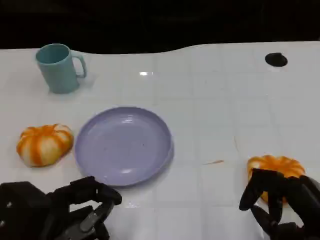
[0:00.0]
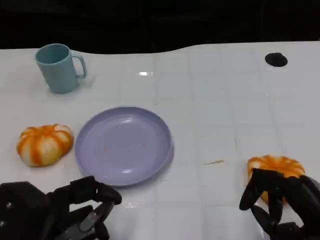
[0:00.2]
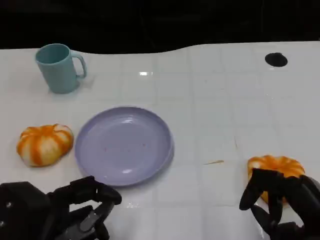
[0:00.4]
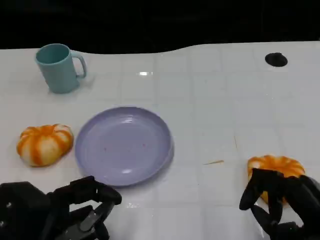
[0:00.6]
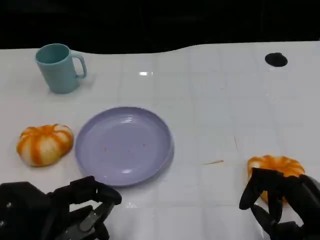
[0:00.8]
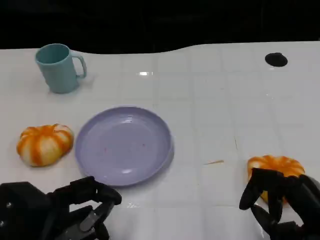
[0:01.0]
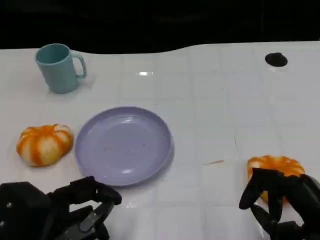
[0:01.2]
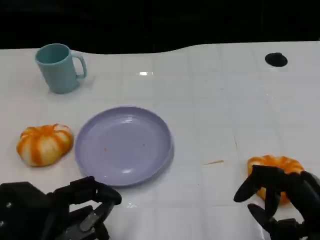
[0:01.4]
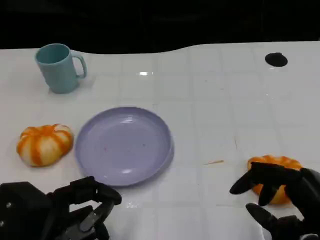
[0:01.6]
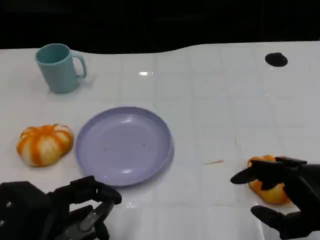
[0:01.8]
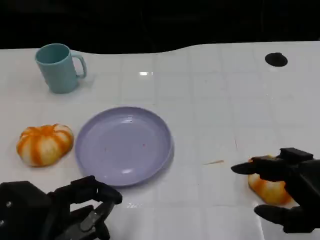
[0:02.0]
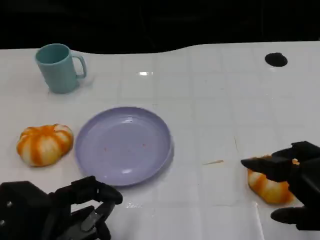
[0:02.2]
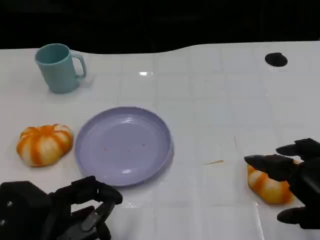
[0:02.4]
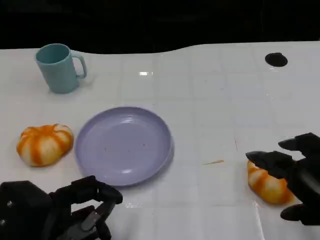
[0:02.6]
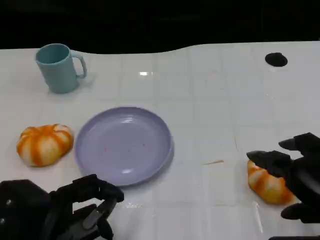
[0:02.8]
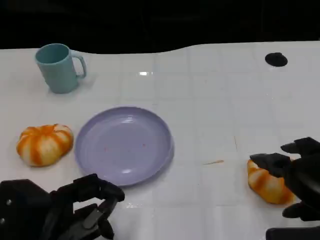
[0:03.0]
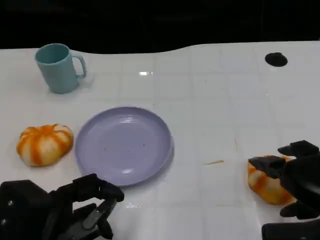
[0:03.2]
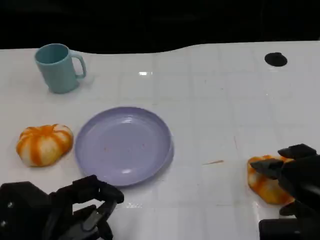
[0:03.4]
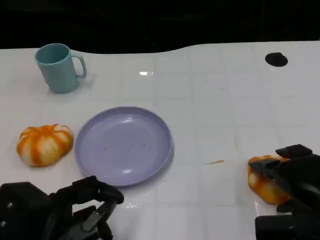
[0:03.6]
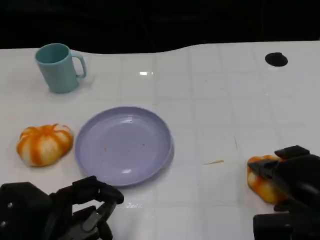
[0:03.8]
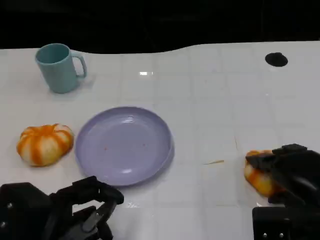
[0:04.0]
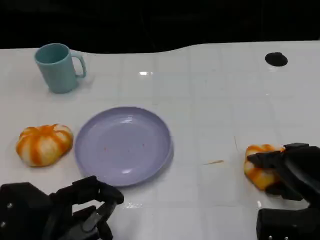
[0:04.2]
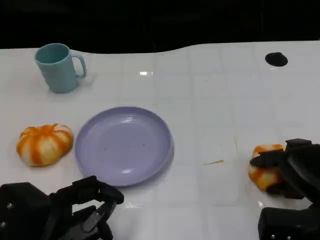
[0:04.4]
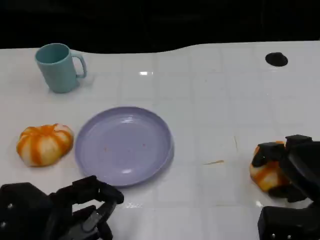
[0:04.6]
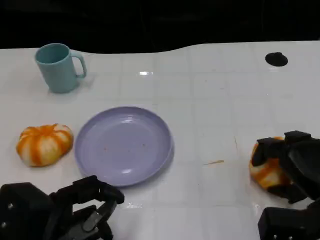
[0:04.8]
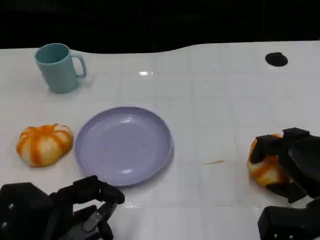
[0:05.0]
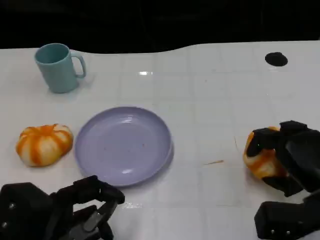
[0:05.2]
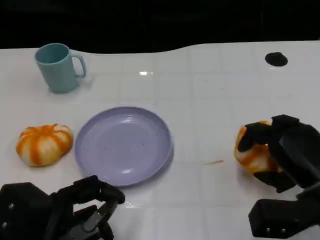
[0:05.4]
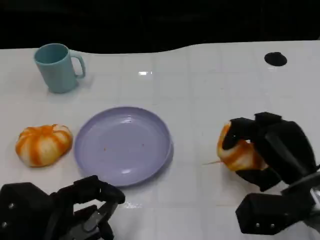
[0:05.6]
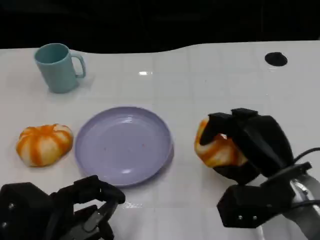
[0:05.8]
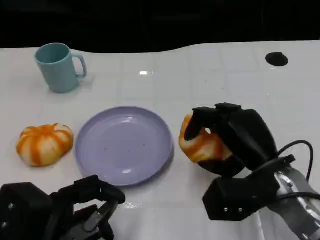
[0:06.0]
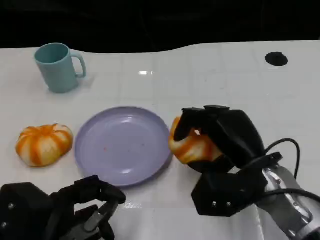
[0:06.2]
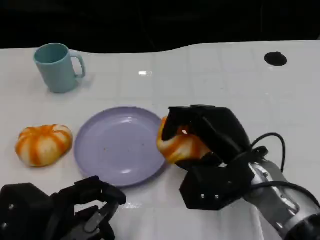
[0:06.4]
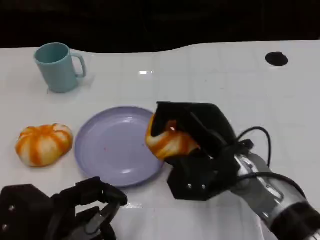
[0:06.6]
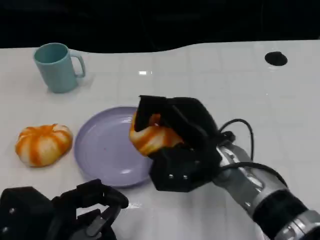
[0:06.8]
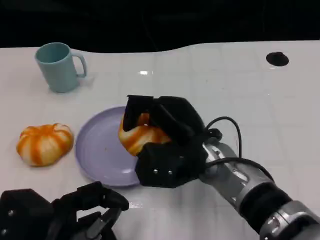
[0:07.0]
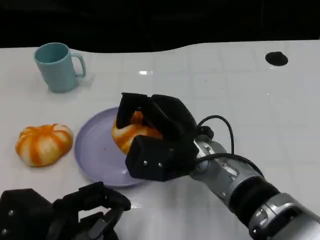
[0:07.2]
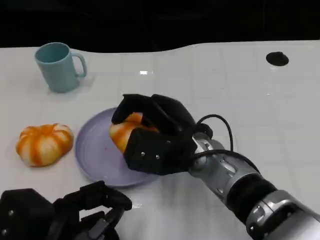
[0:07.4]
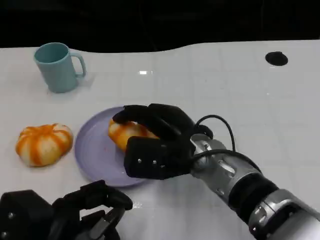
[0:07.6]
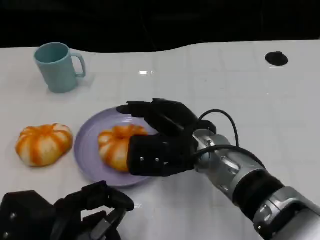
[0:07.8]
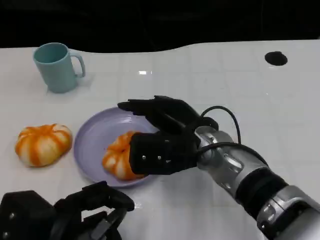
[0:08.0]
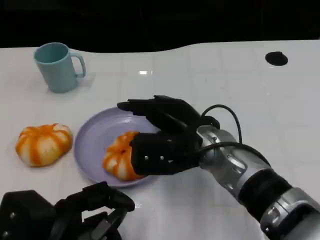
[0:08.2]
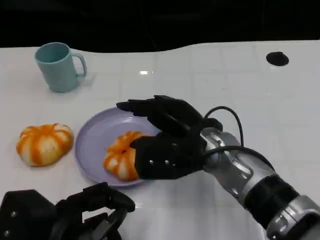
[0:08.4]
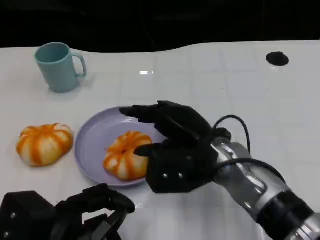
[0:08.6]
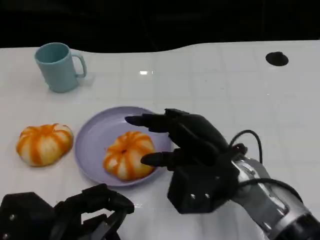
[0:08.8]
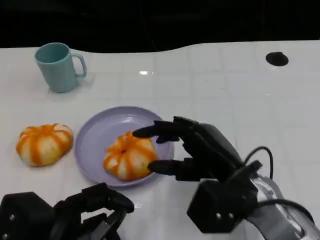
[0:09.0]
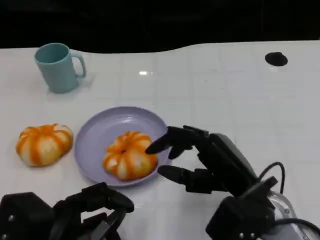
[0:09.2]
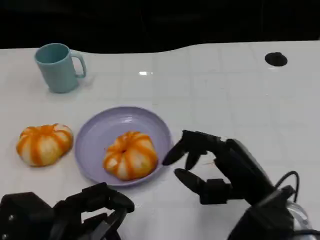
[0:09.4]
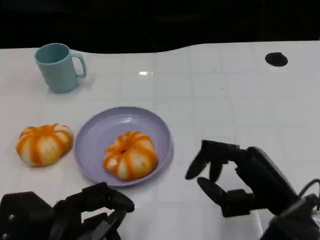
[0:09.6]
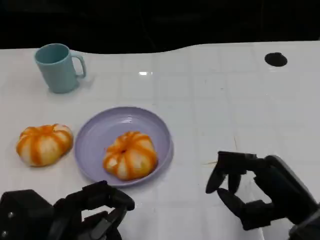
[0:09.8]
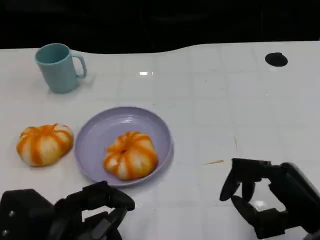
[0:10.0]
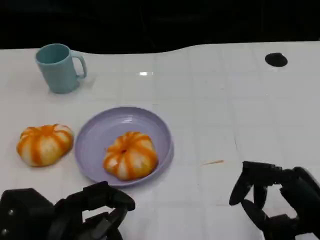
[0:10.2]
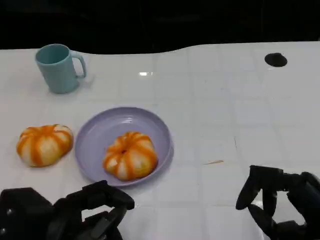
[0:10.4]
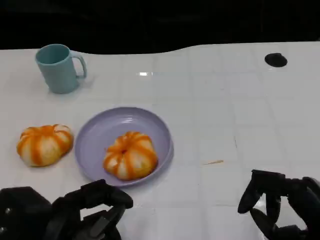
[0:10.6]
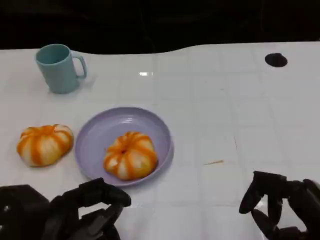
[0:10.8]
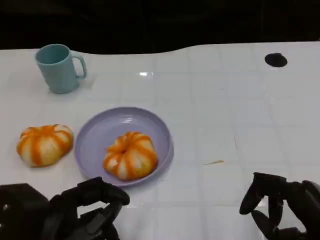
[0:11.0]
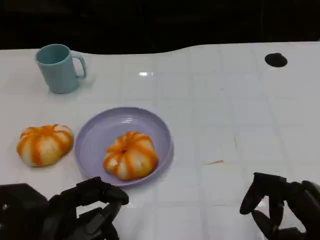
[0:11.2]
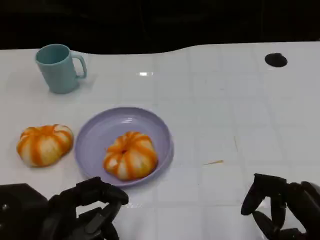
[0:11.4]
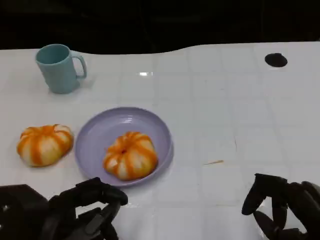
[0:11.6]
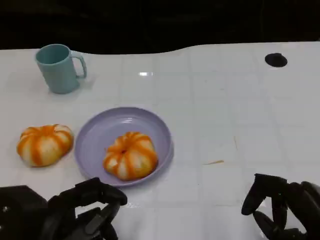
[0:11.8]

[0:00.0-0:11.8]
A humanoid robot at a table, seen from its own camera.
Task of the whole recording: Grasp the bread from the table and place it into the plate.
0:00.0 to 0:01.4: Neither hand changes place.
0:03.0 to 0:04.4: The right hand heads downward, covering some 10 cm.
0:04.4 to 0:06.0: The right hand is displaced to the left by some 10 cm.
0:06.0 to 0:07.4: The right hand travels to the left by roughly 10 cm.
0:07.4 to 0:08.8: The right hand heads to the right, covering approximately 5 cm.
0:08.8 to 0:10.4: The right hand goes some 15 cm to the right and backward.
0:10.4 to 0:11.8: The hands make only small movements.

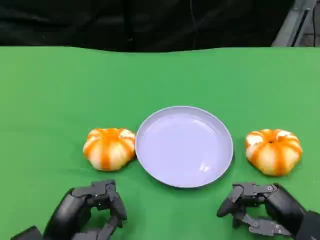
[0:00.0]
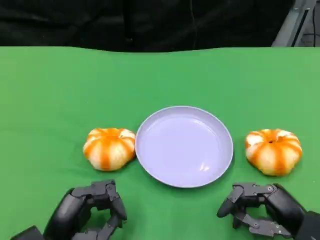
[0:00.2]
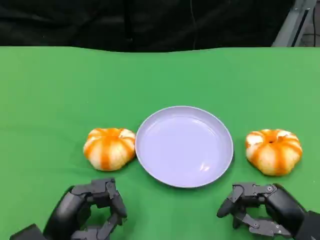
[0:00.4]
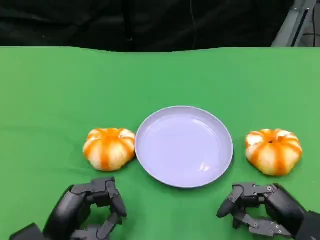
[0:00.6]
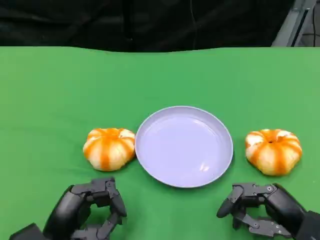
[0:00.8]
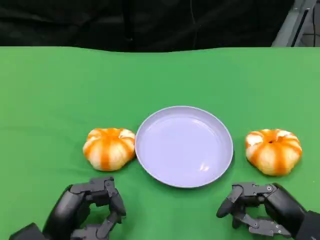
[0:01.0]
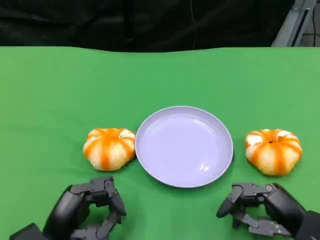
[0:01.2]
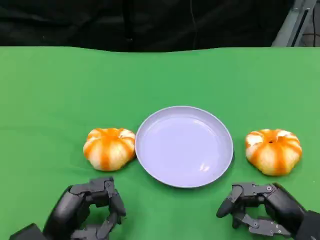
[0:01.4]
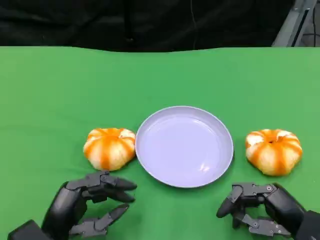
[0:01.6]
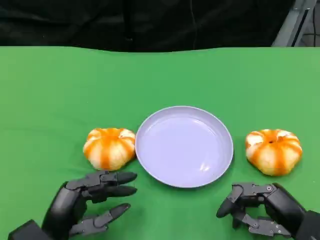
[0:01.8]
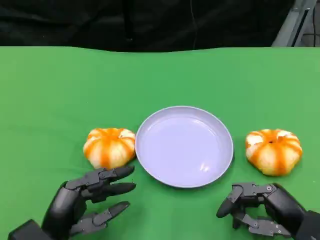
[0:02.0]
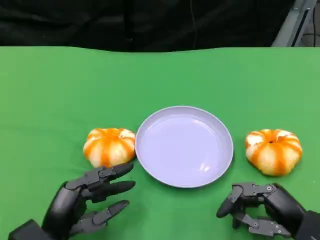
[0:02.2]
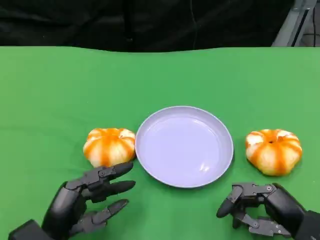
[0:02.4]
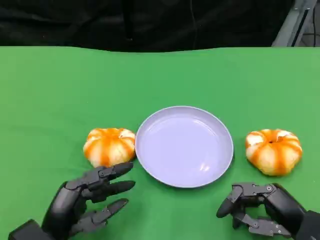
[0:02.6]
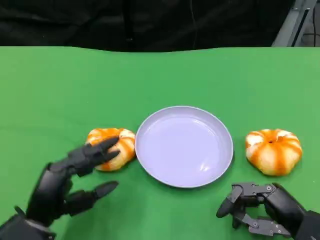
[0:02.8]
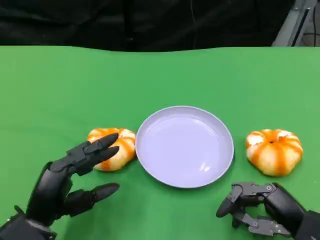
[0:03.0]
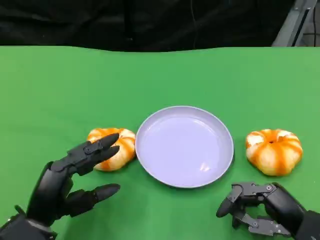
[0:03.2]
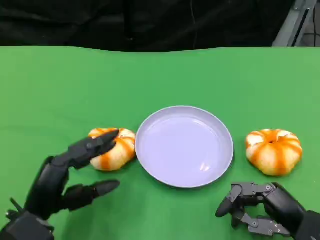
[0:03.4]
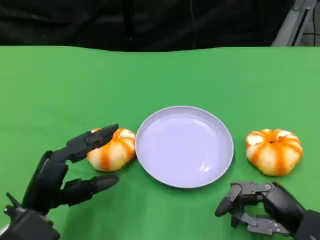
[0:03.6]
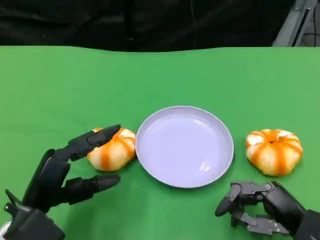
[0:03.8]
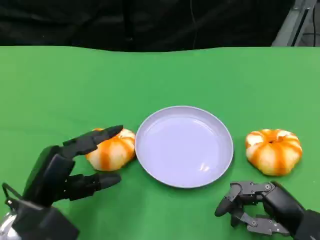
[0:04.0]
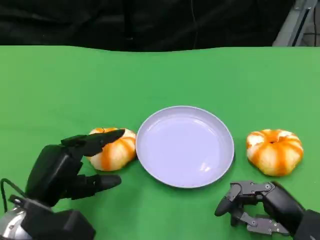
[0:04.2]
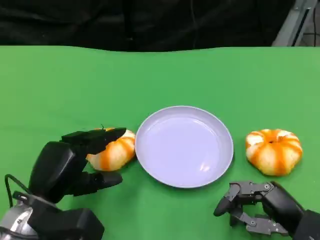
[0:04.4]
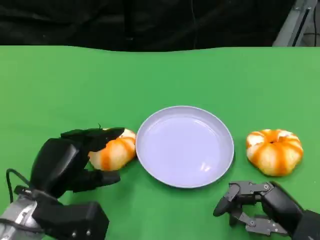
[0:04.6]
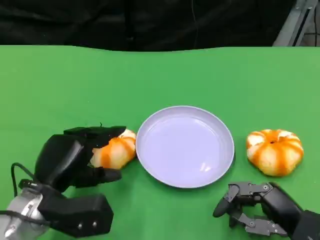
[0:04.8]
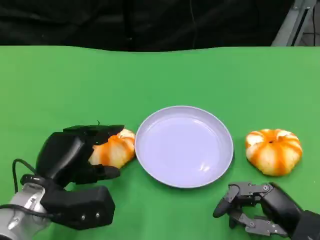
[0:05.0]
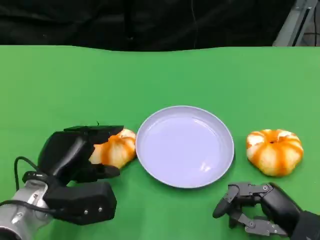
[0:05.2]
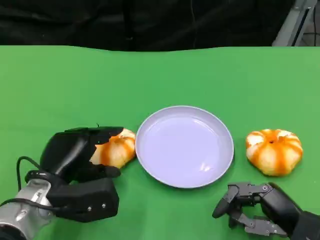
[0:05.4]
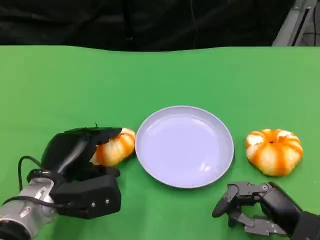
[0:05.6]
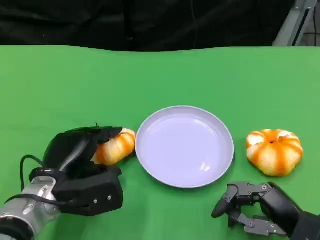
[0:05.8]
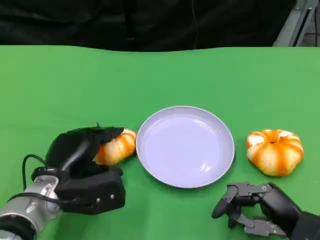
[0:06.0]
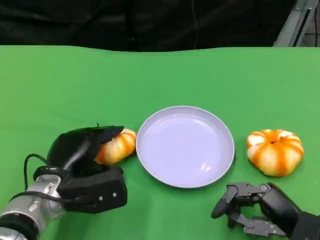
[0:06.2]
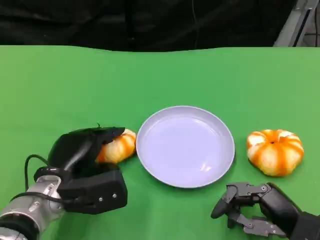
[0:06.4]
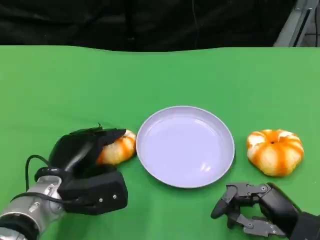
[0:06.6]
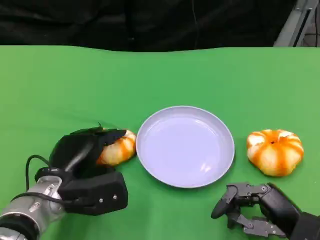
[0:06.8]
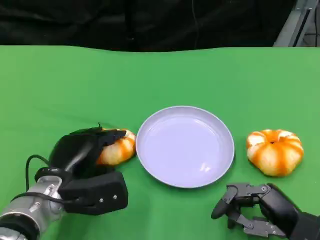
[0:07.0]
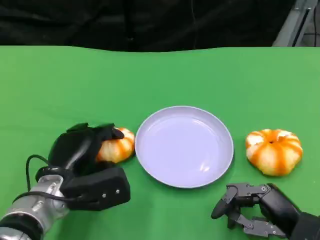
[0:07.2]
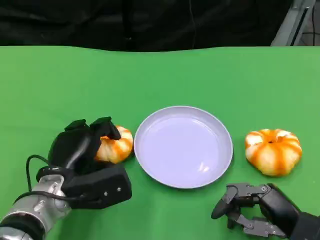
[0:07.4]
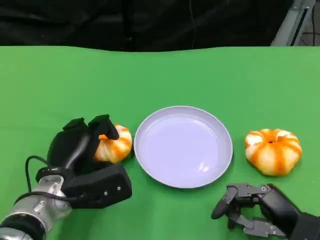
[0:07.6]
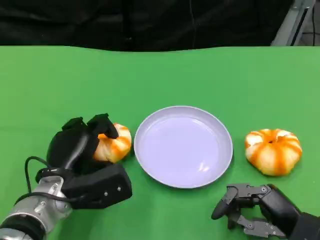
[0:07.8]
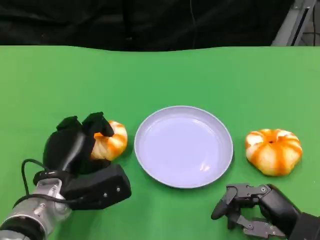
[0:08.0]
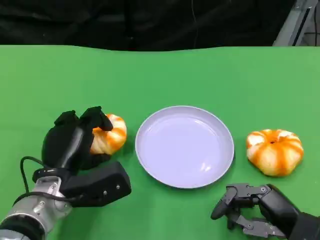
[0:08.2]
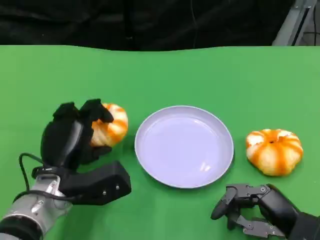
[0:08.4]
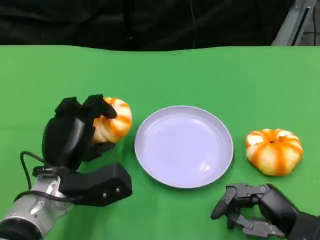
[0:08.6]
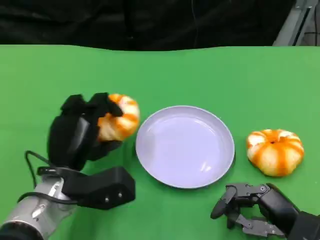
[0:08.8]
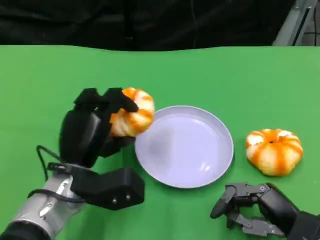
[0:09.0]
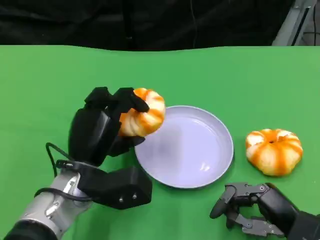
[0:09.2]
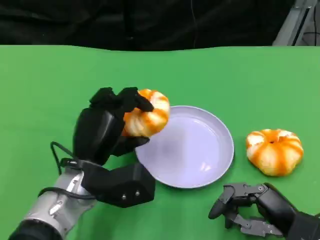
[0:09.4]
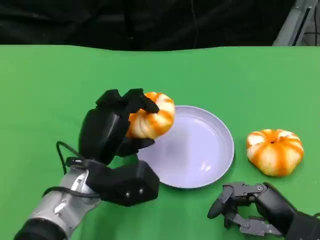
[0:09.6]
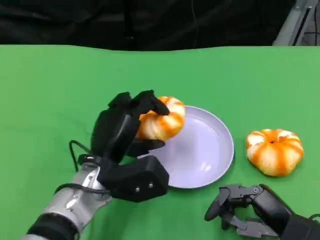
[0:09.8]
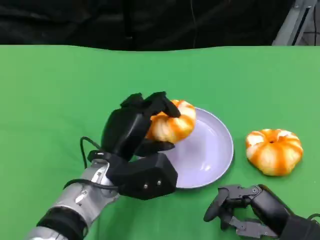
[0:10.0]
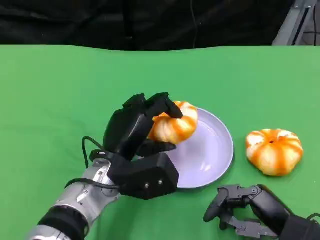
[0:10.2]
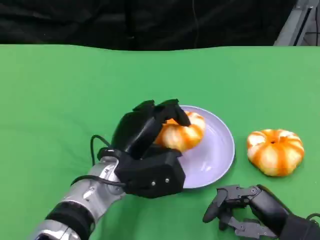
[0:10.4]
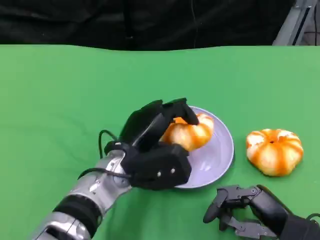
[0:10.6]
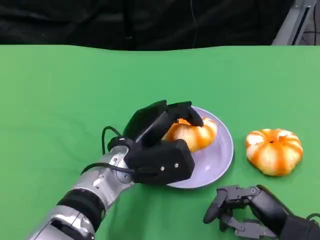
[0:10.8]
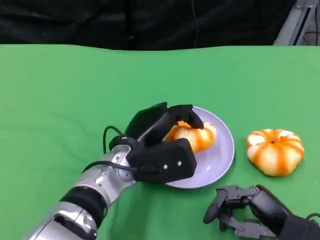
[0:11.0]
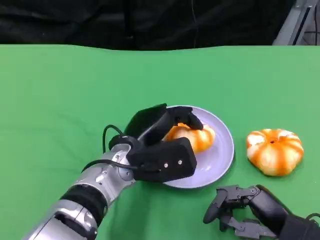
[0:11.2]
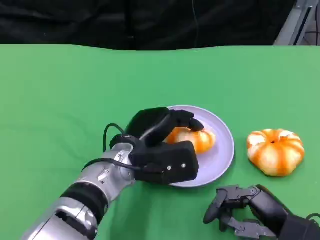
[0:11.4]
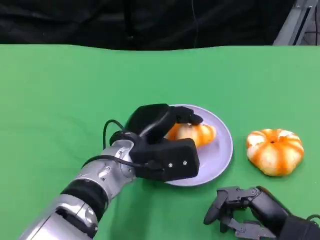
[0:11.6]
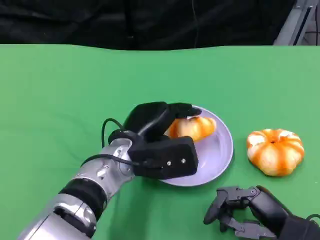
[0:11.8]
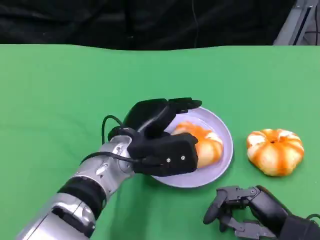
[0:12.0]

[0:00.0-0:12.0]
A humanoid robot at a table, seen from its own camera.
Task of the whole recording: Grasp the bread from the table and place it into the plate.
0:00.0 to 0:01.6: Both hands stay about where they are.
0:01.6 to 0:03.0: The hands move only a little.
0:06.0 to 0:07.6: There are only small adjustments of the hands.
0:09.0 to 0:10.4: The left hand is displaced to the right by some 5 cm.
0:10.4 to 0:12.0: There are only small adjustments of the hands.
